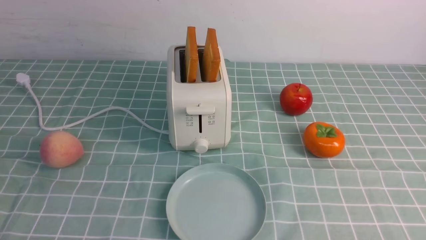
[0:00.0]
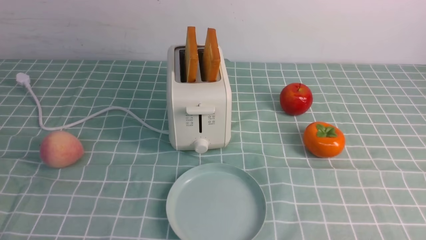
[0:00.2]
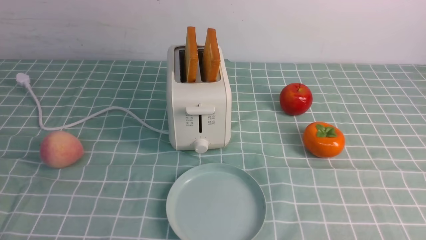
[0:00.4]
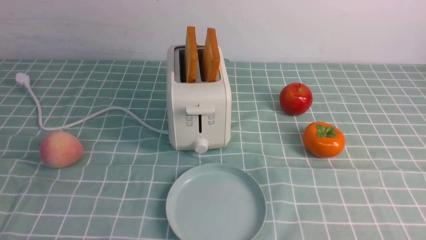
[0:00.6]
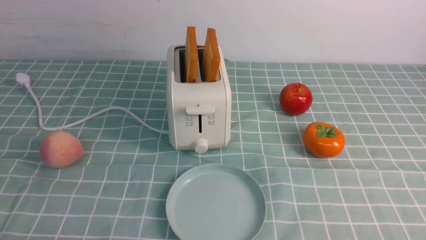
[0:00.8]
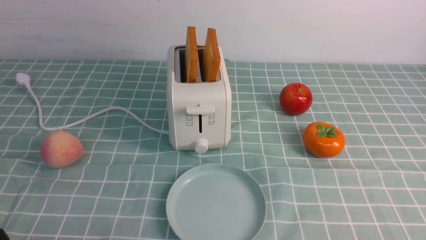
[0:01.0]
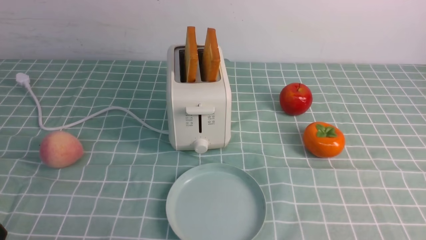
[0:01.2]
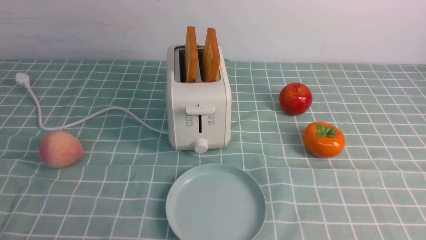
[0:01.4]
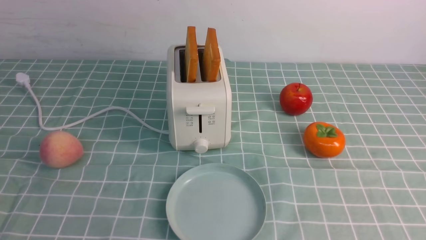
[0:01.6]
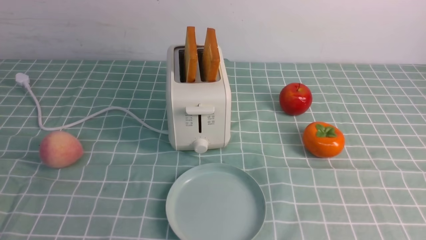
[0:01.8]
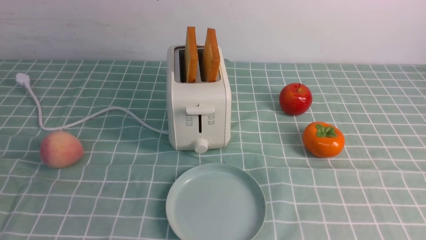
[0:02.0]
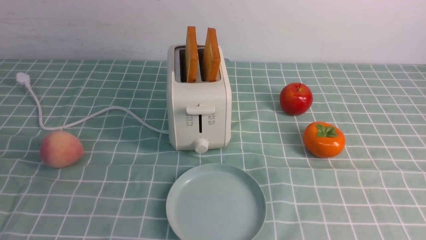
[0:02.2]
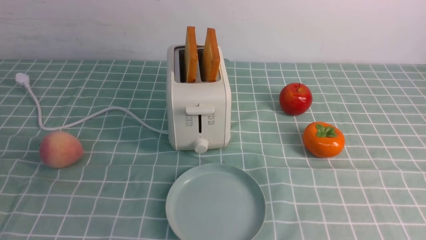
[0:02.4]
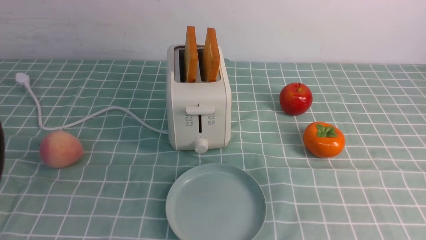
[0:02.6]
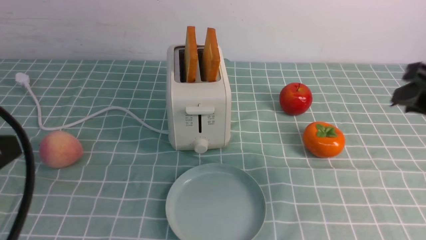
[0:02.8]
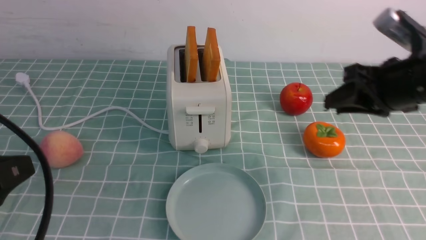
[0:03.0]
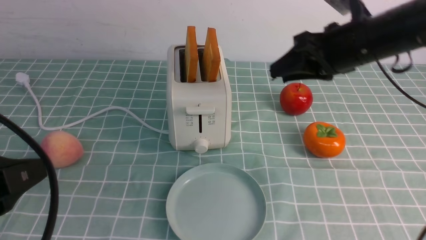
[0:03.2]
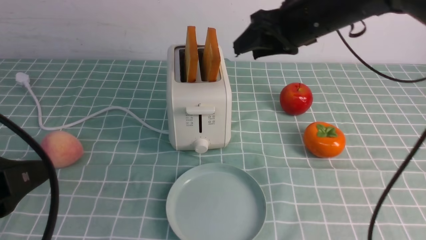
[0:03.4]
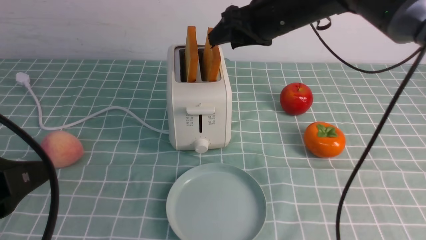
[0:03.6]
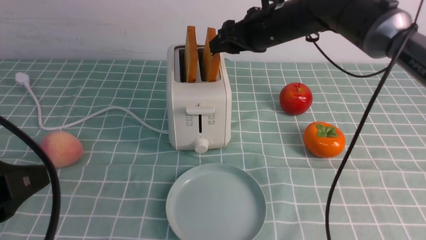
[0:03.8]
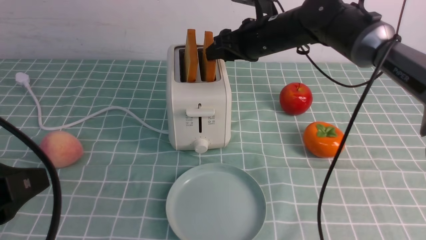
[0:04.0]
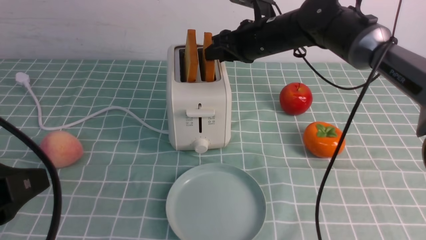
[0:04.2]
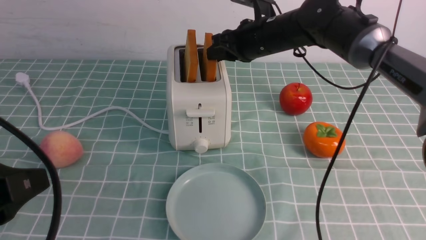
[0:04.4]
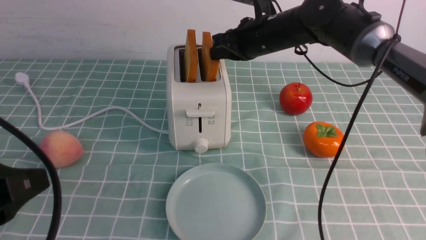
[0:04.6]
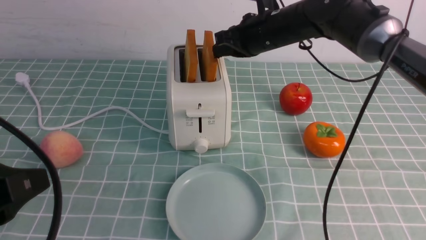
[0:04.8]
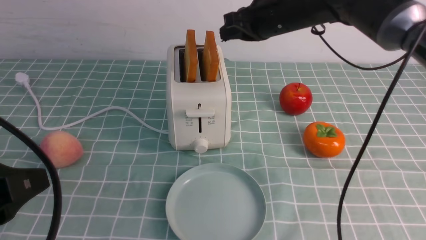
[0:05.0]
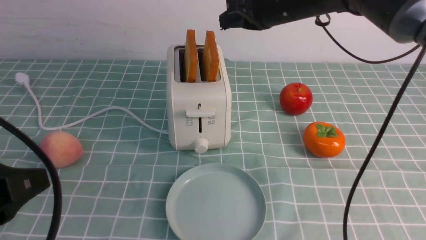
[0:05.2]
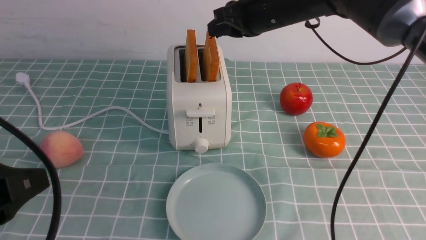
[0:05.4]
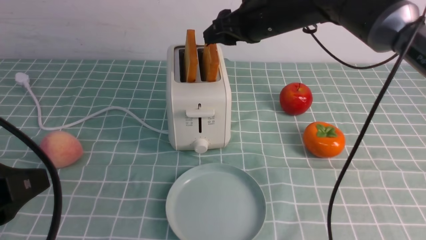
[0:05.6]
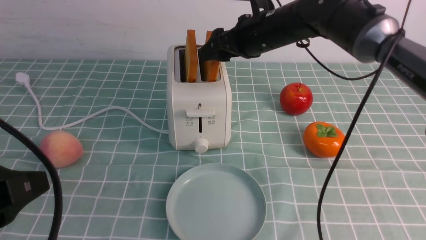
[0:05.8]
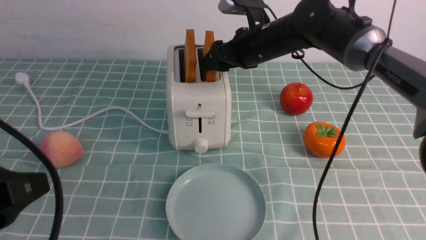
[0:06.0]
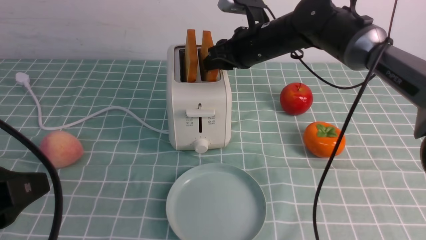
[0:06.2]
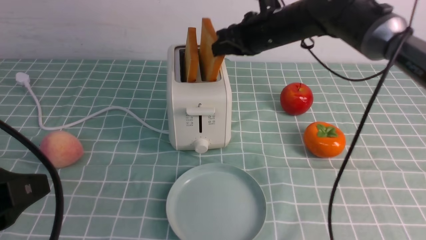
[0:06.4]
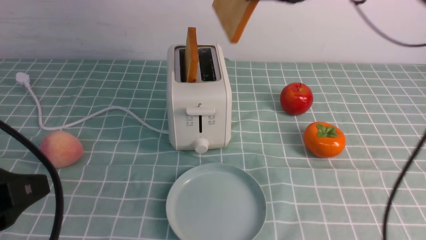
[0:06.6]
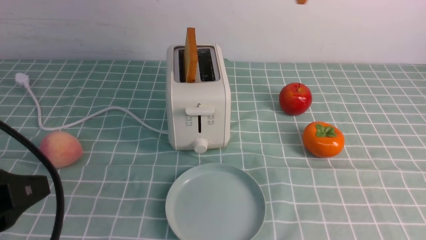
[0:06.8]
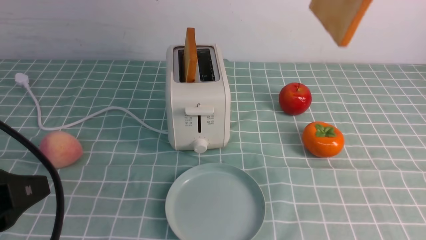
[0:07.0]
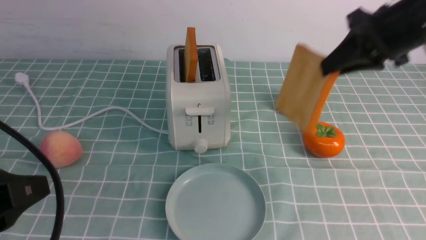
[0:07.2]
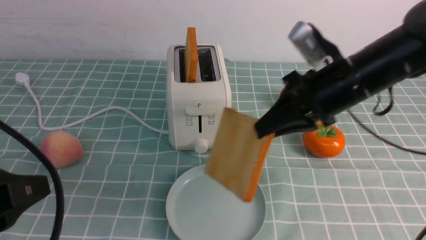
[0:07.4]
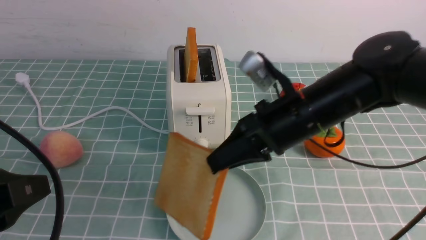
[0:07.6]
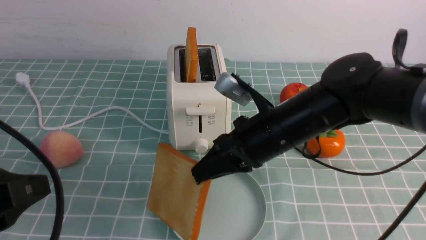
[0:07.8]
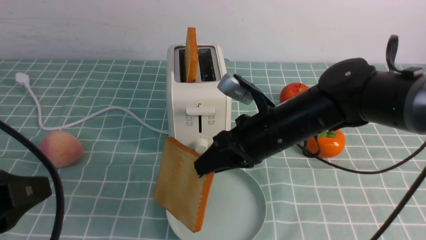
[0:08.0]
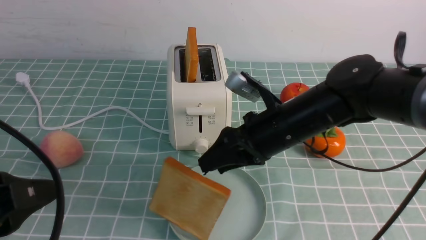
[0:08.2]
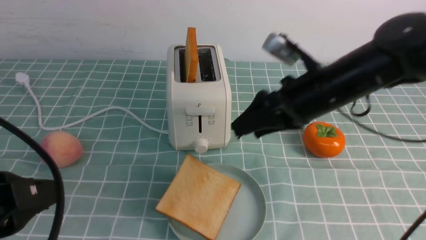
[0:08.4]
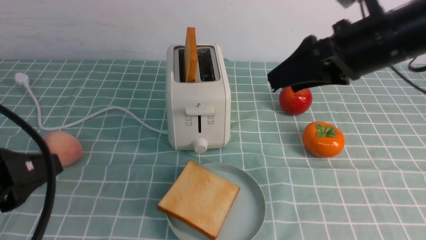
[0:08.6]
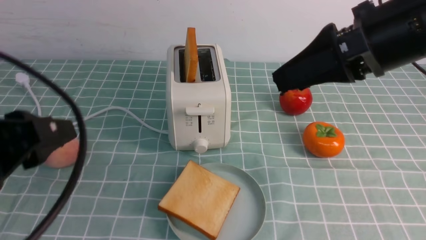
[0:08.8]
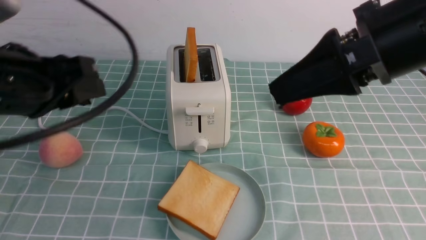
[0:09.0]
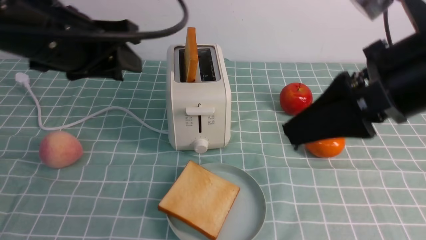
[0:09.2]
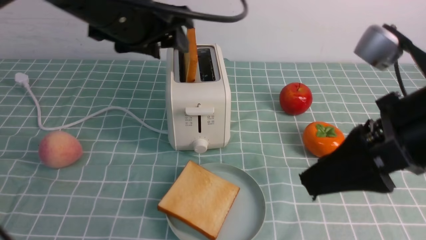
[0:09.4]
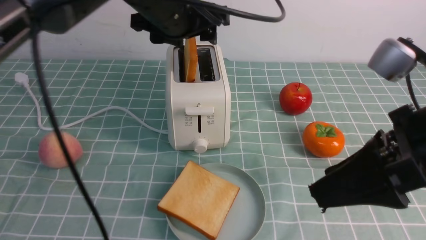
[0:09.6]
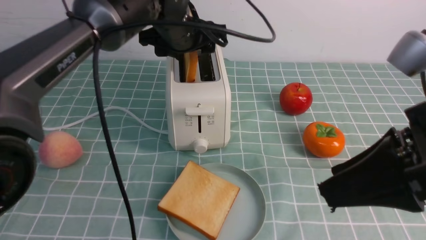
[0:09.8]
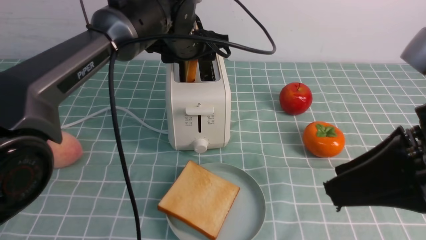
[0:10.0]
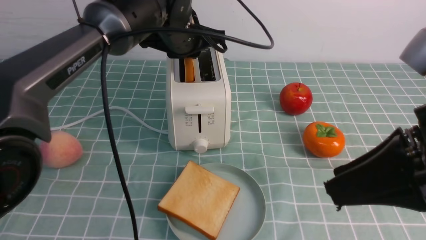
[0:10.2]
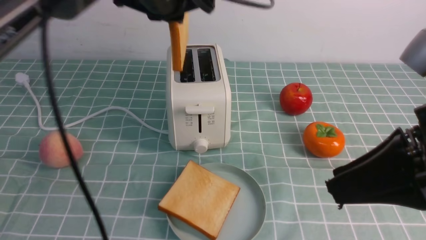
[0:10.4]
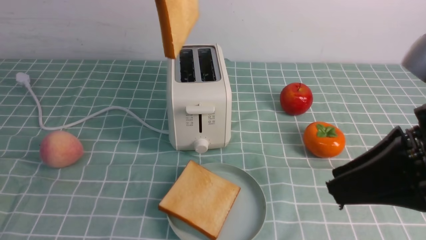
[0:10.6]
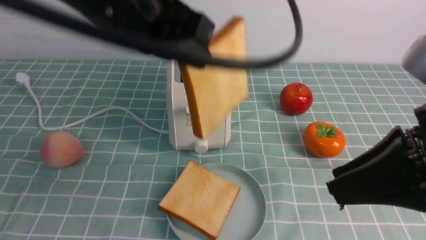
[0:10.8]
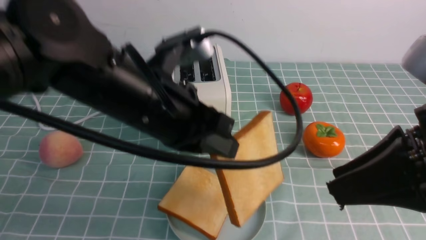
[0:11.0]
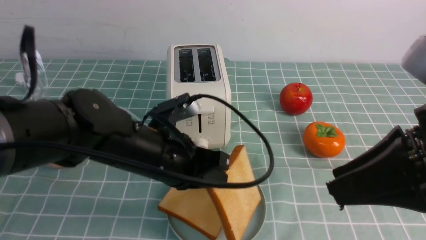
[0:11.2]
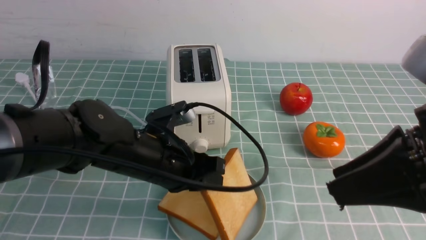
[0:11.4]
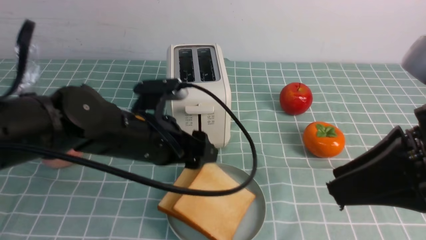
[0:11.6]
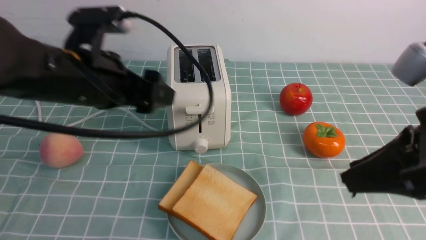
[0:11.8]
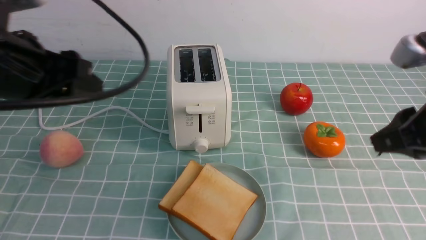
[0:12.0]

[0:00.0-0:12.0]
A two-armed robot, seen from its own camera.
Task of the whole recording: take toasted bread from bread machine on blue coffee table place on plate.
Step, 0:00.0 to 0:06.6: use the right arm to take out a slice of bread.
Step, 0:07.0 to 0:08.6: use the right arm to put a slice of bread into the plate.
Step, 0:08.8 to 0:10.4: use the left arm to take out a slice of bread.
Step, 0:10.6 to 0:11.8: use the left arm to put a slice of bread into the empty plate.
0:01.6 to 0:03.0: The right gripper is displaced forward by about 30 cm; the left gripper travels upward and forward by about 10 cm.
0:03.0 to 0:04.4: The right gripper is displaced forward and to the left by some 20 cm.
0:04.4 to 0:06.0: The right gripper opens up.
0:06.0 to 0:07.6: The right gripper travels backward by approximately 15 cm, travels upward and back again, approximately 15 cm each way, and closes up.
0:07.6 to 0:09.0: The left gripper is displaced forward and upward by approximately 15 cm; the right gripper moves upward, backward and to the right, some 15 cm, and opens its fingers.
0:09.0 to 0:10.4: The left gripper heads forward and to the right, covering roughly 20 cm, and closes. Meanwhile the right gripper goes some 10 cm backward, and closes up.
0:10.4 to 0:12.0: The right gripper heads forward, covering about 5 cm. Meanwhile the left gripper shifts roughly 20 cm backward and to the left, moves some 20 cm downward and comes back, and opens up.

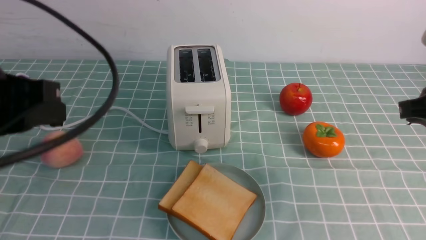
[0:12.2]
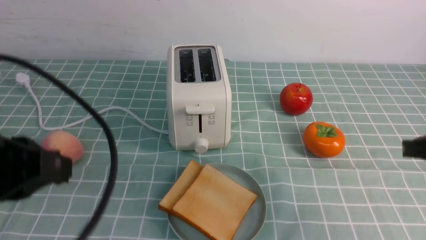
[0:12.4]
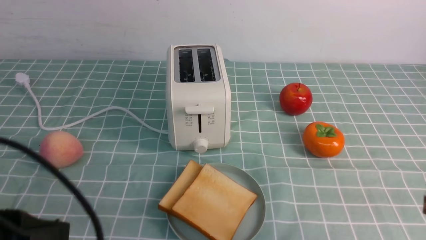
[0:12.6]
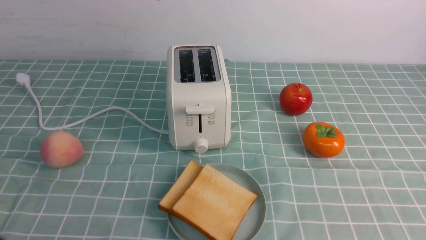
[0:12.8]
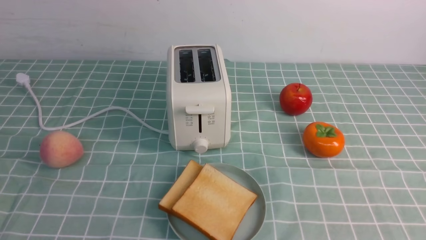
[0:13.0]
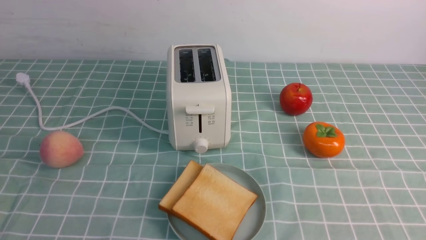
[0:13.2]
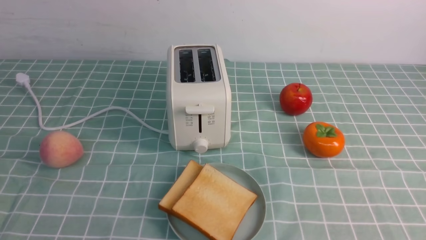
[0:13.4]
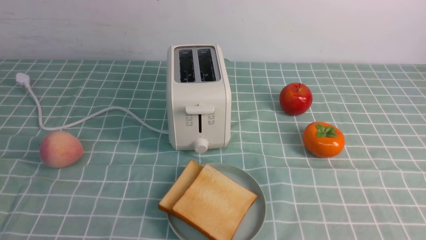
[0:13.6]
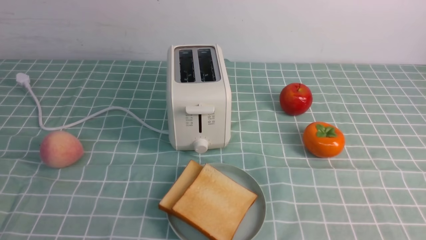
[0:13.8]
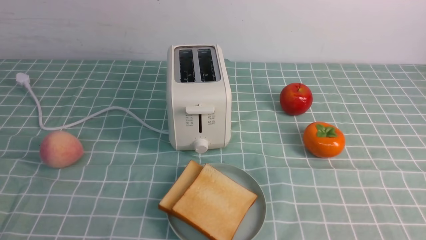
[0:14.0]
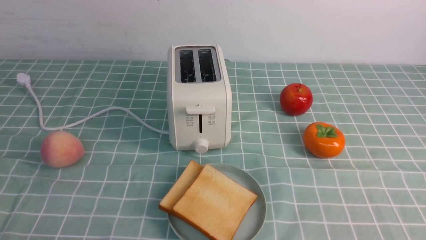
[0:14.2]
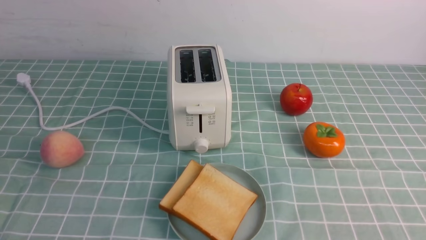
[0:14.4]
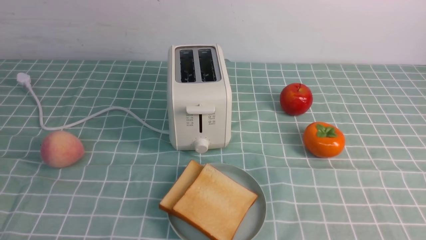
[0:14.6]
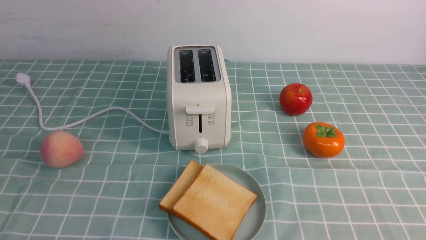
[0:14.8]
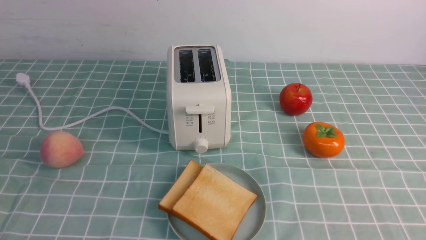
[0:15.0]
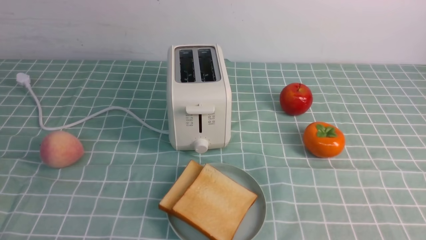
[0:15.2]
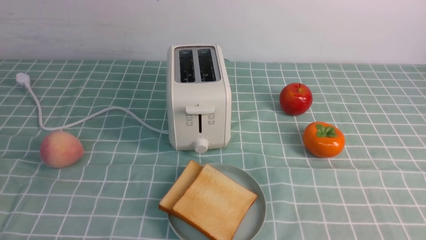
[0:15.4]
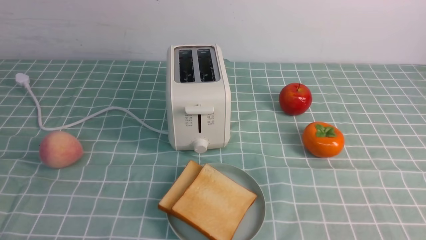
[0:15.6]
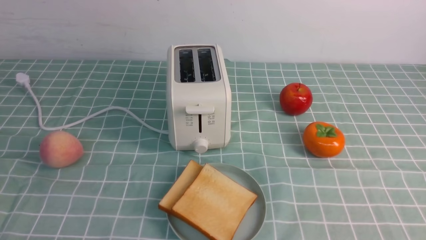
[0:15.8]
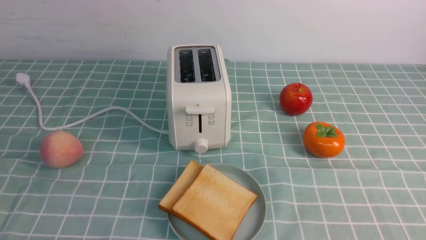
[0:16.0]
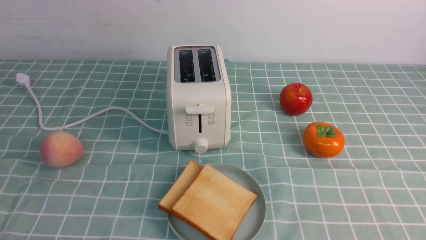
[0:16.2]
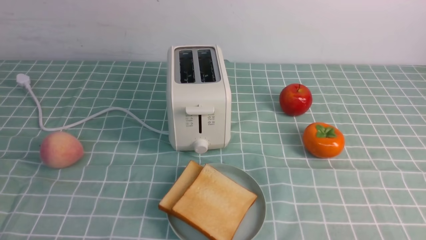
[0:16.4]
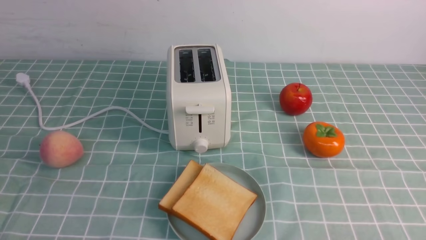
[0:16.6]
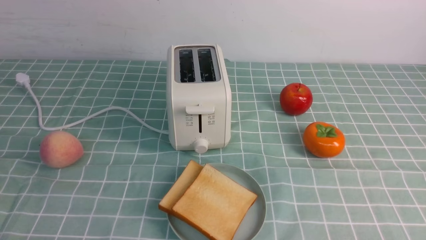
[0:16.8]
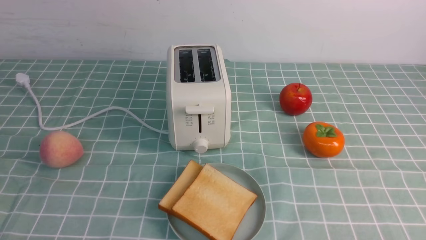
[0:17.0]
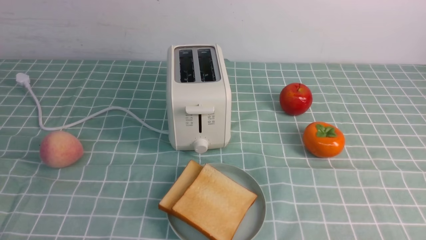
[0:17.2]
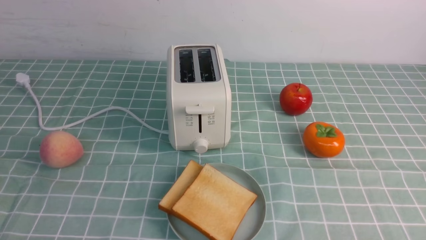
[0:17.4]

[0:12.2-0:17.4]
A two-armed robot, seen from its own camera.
Task of the whole recording: take toasted bread from bread machine on blue coffee table place on plate.
0:12.2 to 0:14.0: The grippers both shift backward and downward by some 20 cm.
